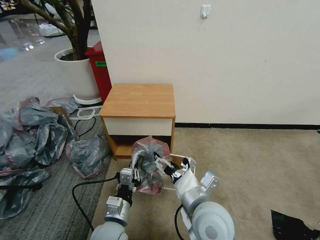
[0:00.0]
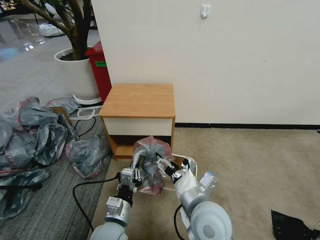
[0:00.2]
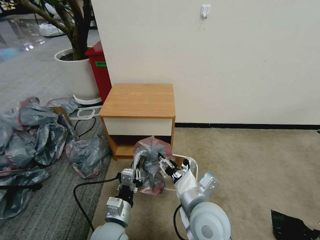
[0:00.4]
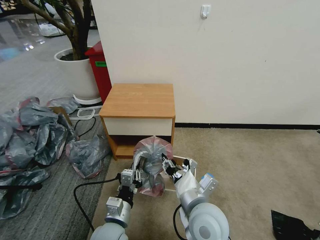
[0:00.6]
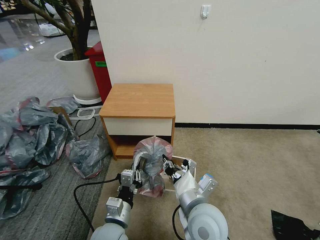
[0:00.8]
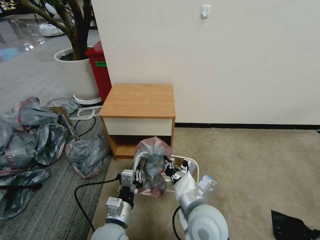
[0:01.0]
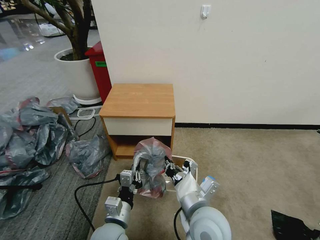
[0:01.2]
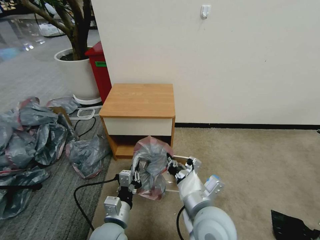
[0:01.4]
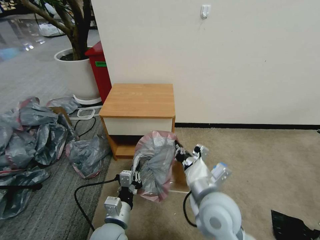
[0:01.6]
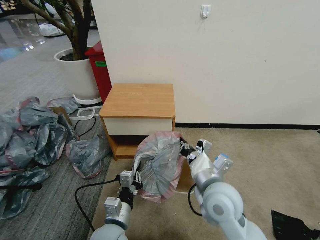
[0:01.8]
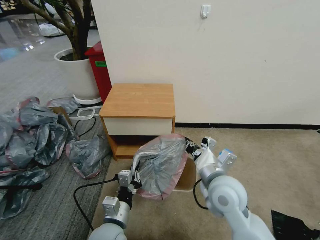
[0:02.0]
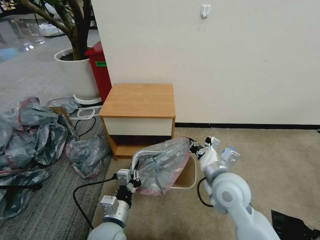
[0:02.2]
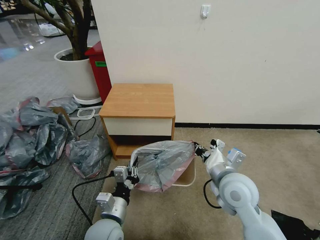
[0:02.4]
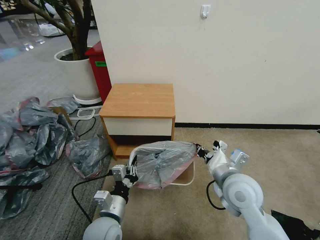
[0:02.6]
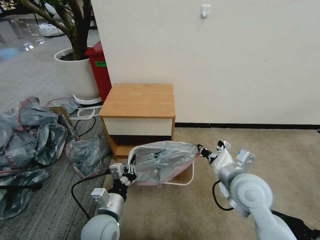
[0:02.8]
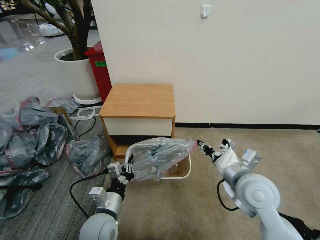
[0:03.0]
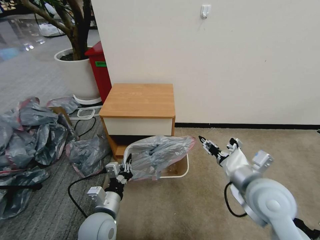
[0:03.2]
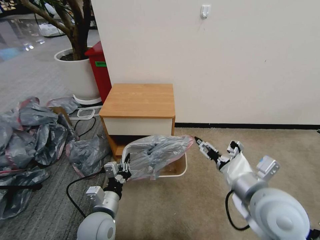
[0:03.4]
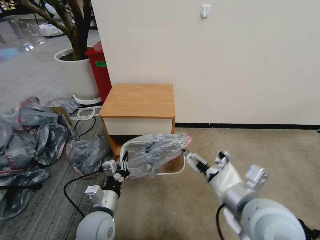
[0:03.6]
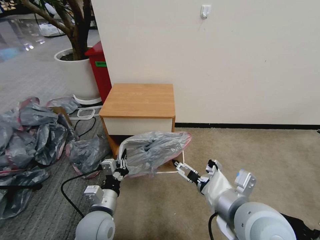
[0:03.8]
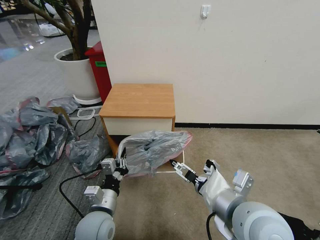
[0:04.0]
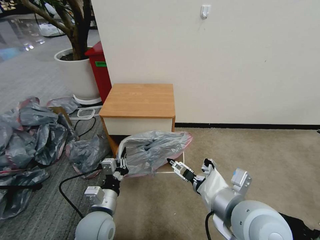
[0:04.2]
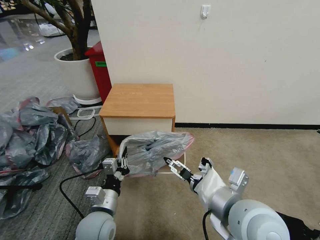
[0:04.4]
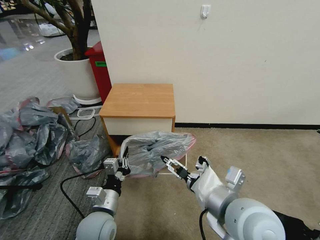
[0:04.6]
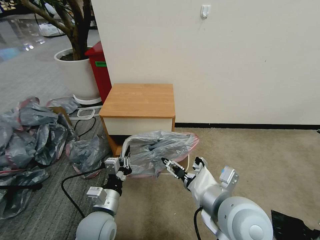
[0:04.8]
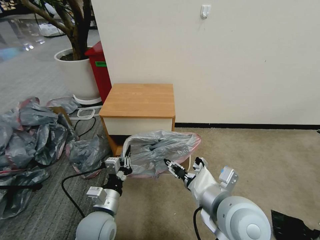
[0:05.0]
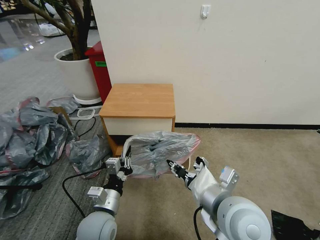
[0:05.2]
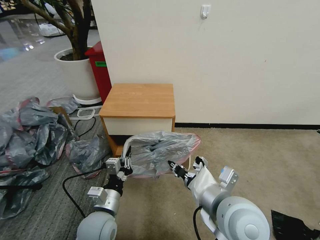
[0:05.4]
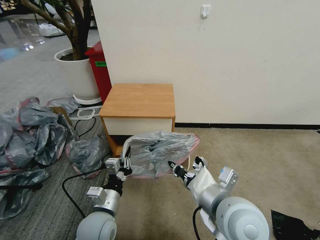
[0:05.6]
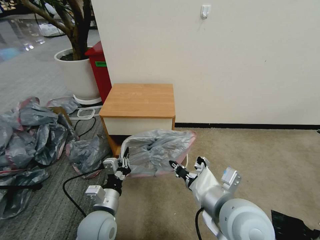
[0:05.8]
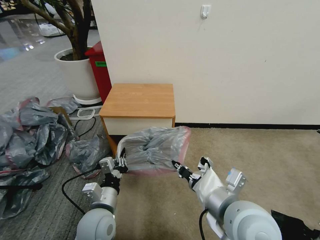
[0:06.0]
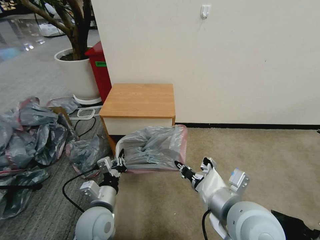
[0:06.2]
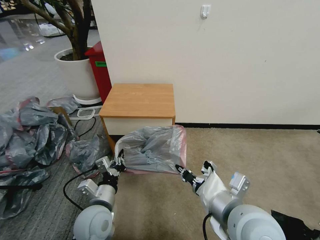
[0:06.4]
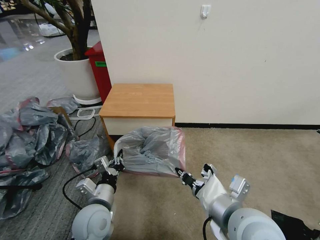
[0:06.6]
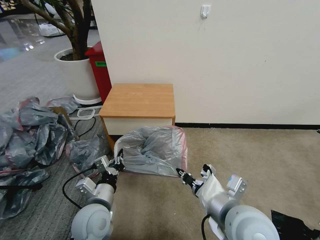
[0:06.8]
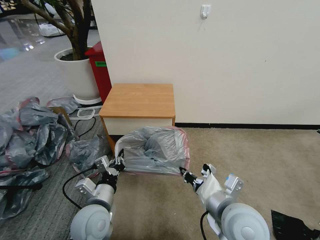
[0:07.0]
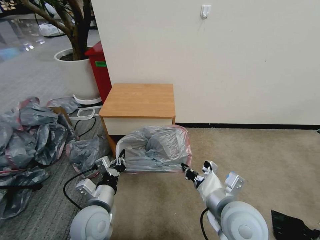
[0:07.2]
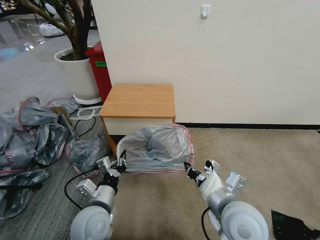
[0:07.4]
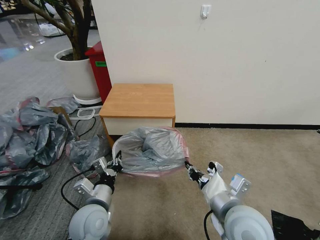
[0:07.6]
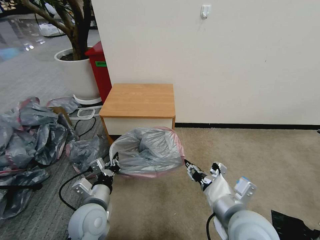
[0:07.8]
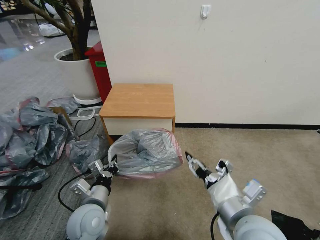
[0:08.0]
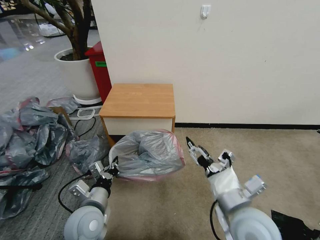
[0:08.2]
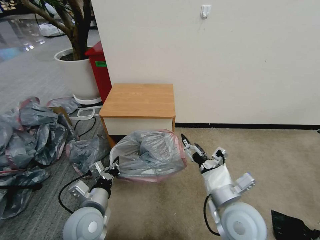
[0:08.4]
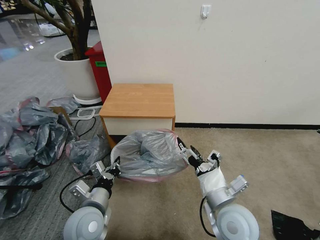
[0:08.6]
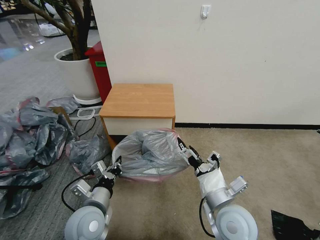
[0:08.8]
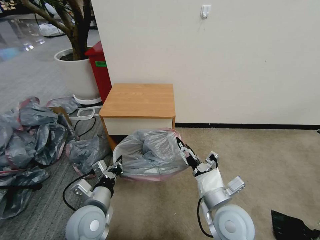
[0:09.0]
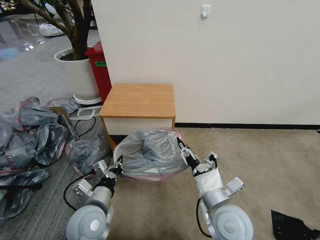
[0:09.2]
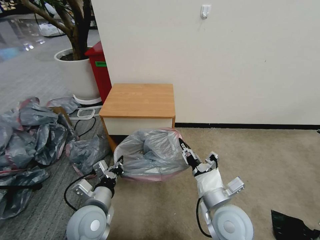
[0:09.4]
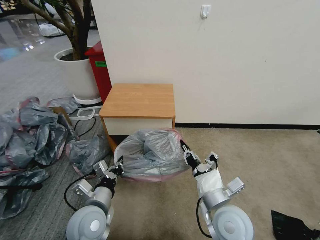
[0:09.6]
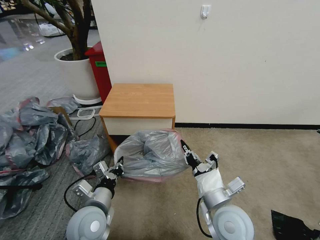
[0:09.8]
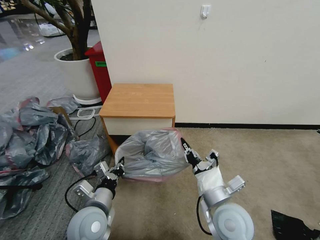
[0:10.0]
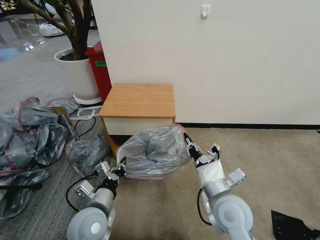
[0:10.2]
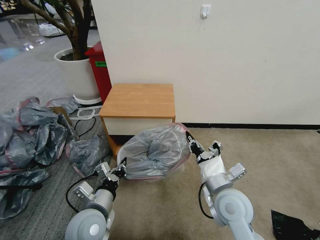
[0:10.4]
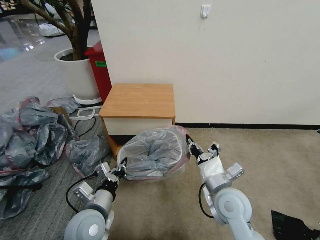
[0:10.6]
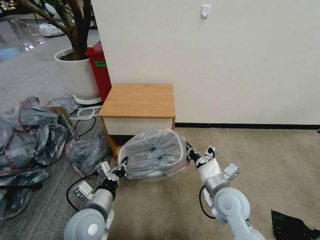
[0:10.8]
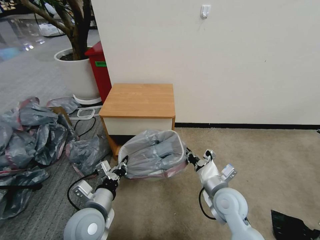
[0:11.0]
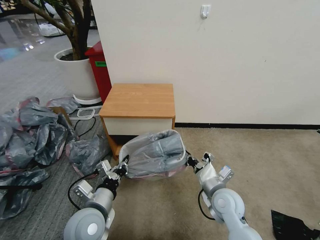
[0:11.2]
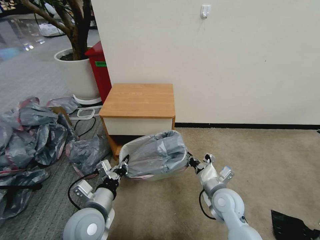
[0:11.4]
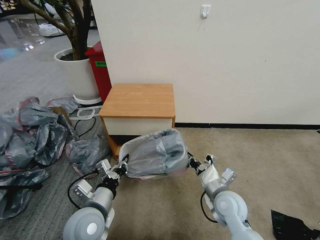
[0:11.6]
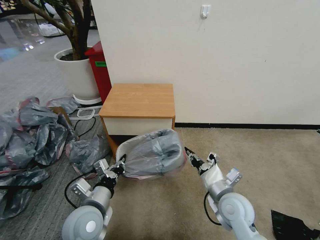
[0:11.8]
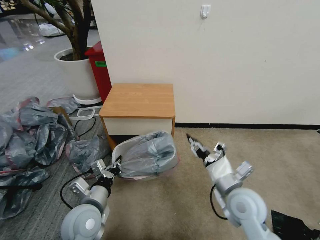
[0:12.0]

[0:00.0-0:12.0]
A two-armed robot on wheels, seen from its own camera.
Task of the whole recording: Pick up the garbage bag from the table and place it over the trash can.
0:00.0 to 0:01.6: The right gripper closes.
0:01.6 to 0:03.0: The right gripper goes about 10 cm to the right.
0:03.0 to 0:04.4: The right gripper heads backward, to the left and upward, covering approximately 10 cm, and opens its fingers.
0:04.4 to 0:06.0: The right gripper closes up.
0:06.0 to 0:07.6: The right gripper changes place by roughly 5 cm.
0:07.6 to 0:09.0: The right gripper moves downward, approximately 5 cm, and opens.
0:09.0 to 0:10.4: The right gripper closes its fingers.
0:10.4 to 0:12.0: The right gripper moves approximately 10 cm downward and comes back, and opens up.

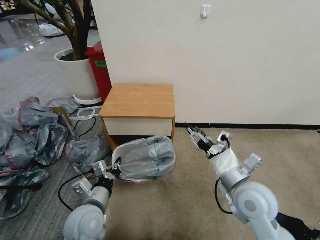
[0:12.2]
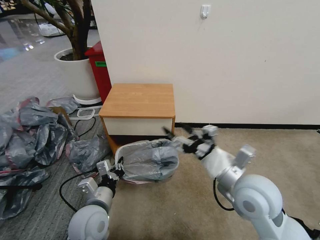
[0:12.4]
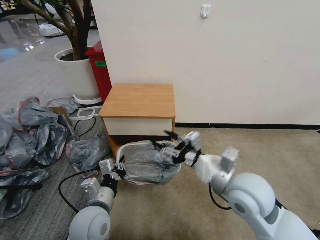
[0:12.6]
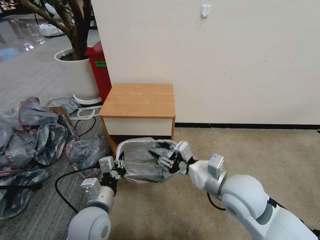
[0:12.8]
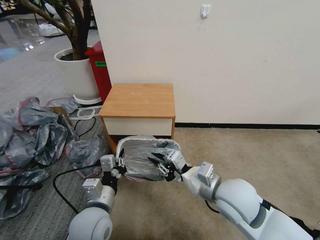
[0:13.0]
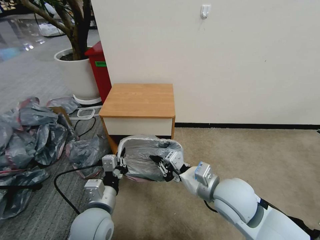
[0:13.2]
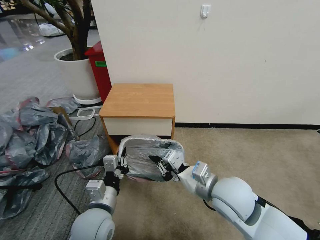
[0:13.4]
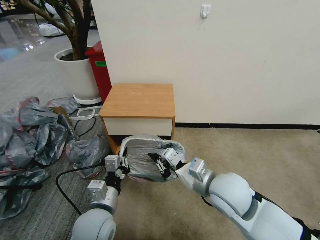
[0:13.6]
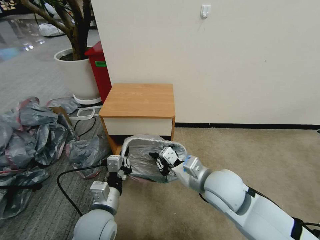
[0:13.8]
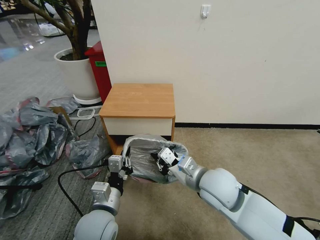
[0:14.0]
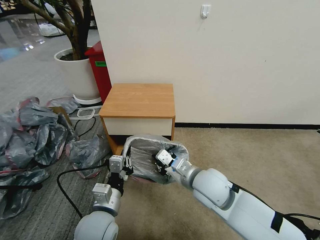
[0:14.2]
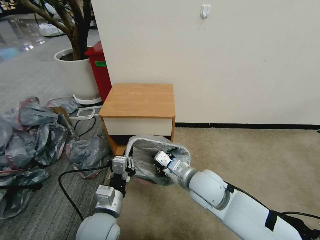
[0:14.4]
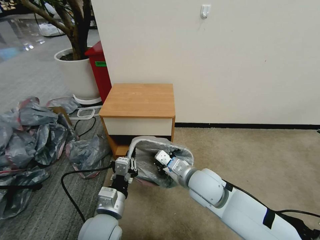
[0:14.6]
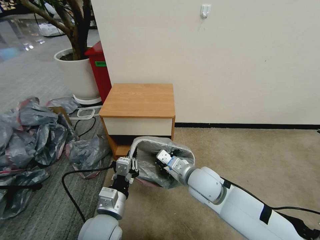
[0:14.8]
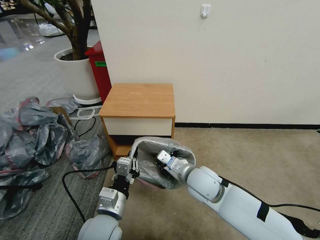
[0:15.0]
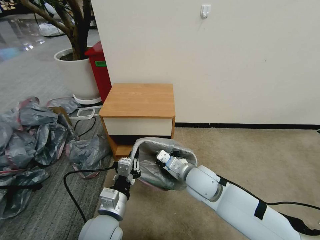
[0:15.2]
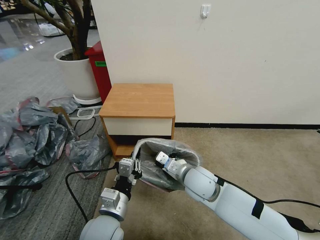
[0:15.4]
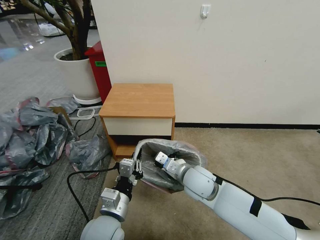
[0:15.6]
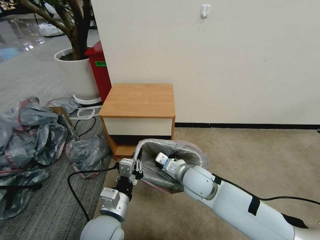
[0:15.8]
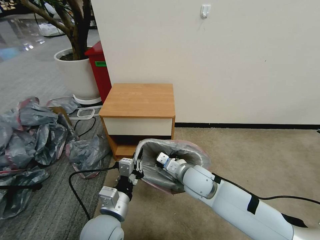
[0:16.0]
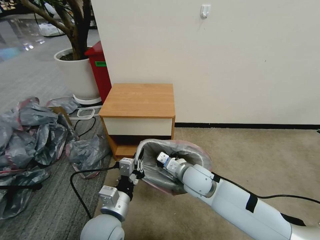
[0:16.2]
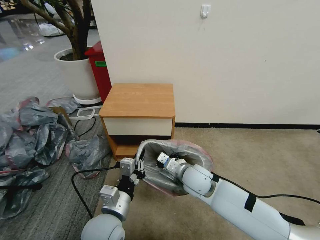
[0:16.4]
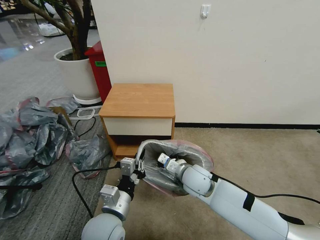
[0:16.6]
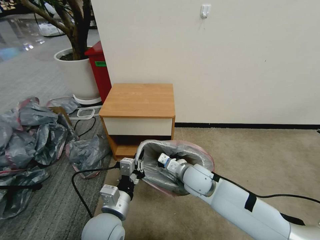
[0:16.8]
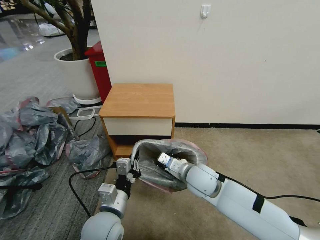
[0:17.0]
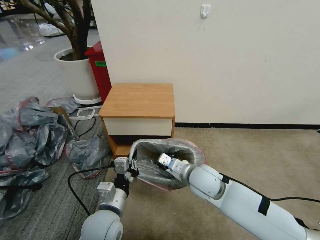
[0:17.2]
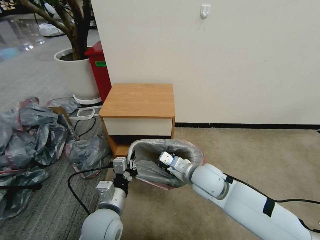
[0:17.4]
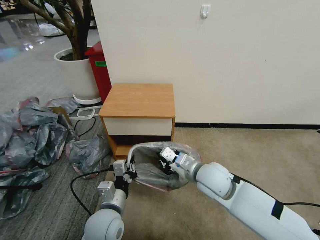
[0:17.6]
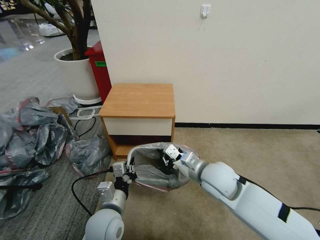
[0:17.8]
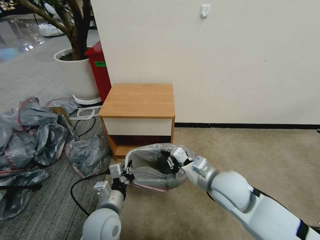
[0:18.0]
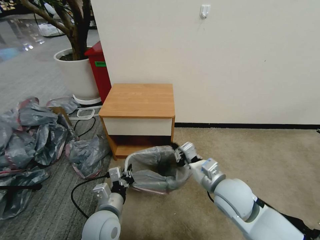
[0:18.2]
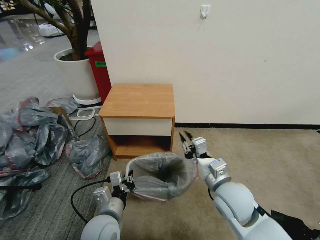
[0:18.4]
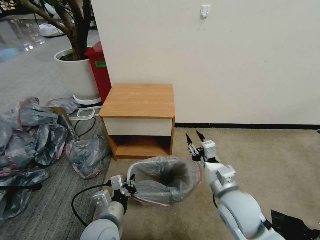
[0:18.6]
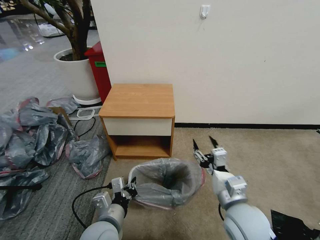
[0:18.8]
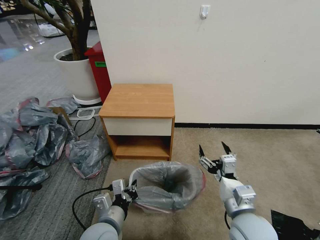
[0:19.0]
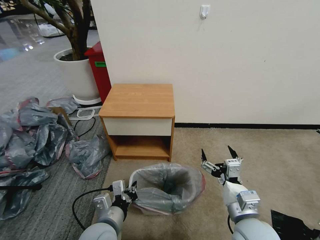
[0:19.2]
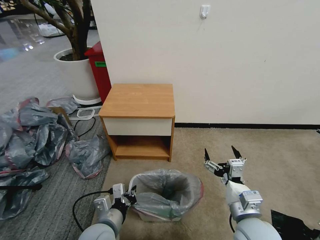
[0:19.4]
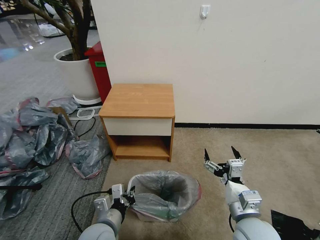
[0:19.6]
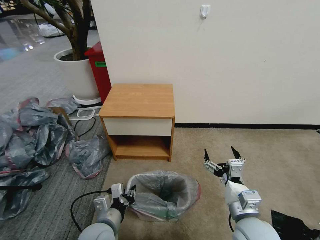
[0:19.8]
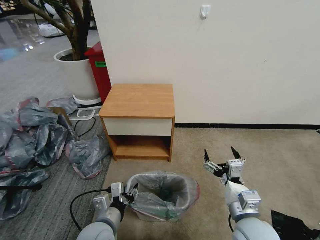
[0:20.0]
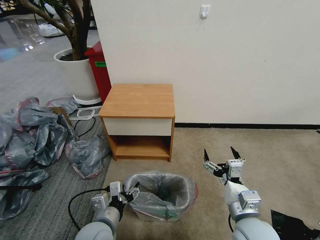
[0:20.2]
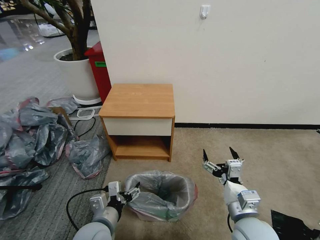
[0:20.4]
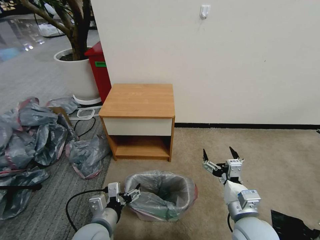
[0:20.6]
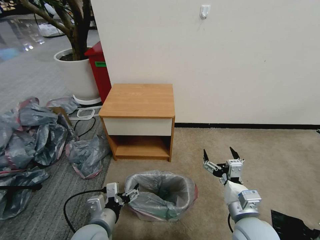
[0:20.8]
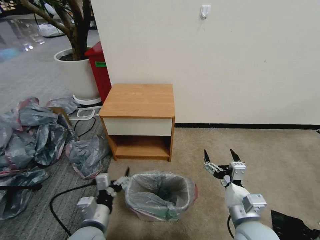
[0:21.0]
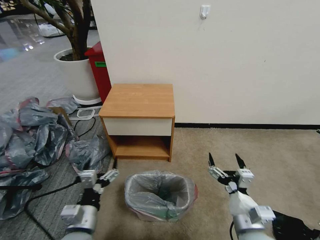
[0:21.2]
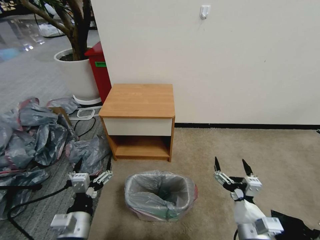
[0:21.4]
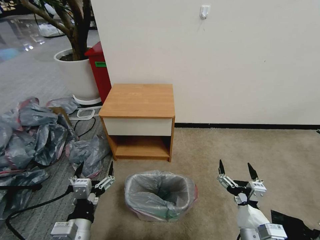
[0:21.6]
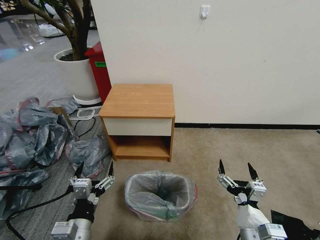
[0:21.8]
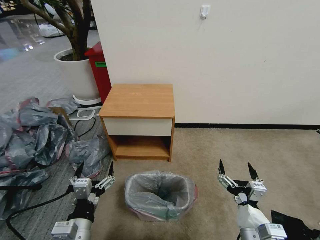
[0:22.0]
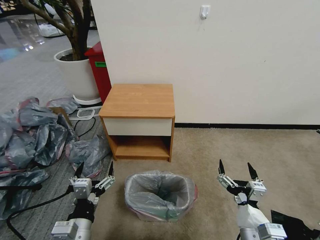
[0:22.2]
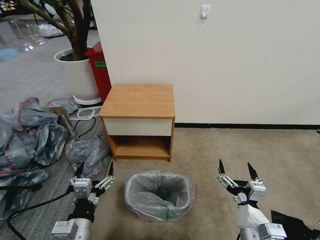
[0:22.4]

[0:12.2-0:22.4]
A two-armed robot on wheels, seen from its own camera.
Task of the whole recording: Pick up the garbage bag from the table and place it over the trash can.
0:12.2 to 0:13.6: The right gripper moves to the left, some 5 cm, and closes its fingers.
0:13.6 to 0:15.2: The right gripper is displaced downward and forward by some 10 cm.
0:15.2 to 0:16.6: The grippers move only a little.
0:16.6 to 0:18.0: The right gripper goes about 10 cm upward, to the right and backward.
0:18.0 to 0:19.4: The right gripper goes about 10 cm backward, and opens up.
0:19.4 to 0:21.0: The left gripper opens up.
0:21.0 to 0:22.4: The grippers both shift backward by about 5 cm.
